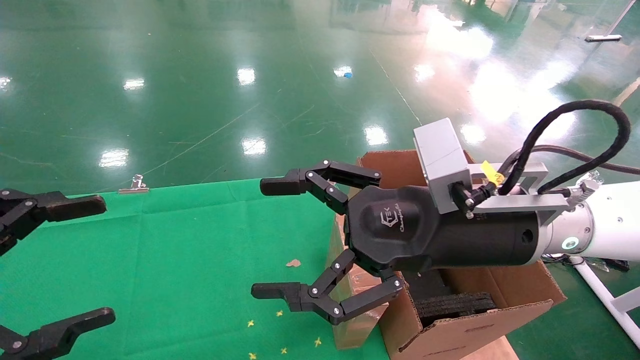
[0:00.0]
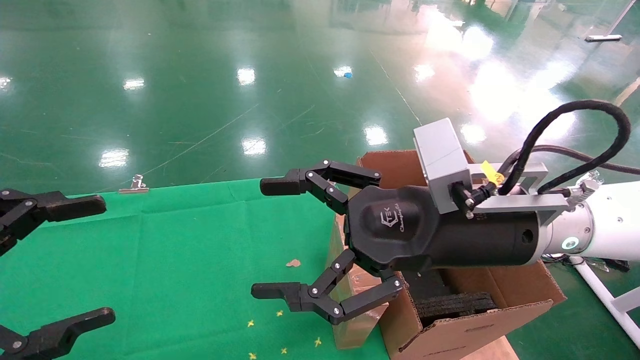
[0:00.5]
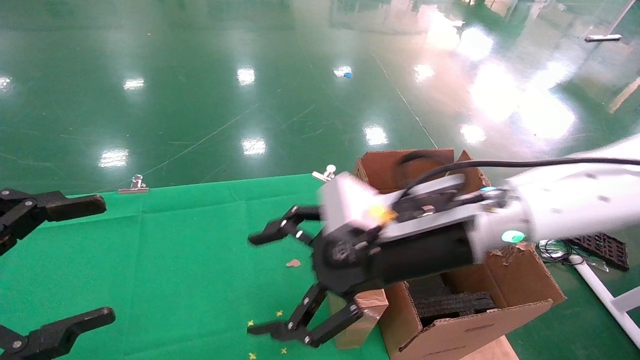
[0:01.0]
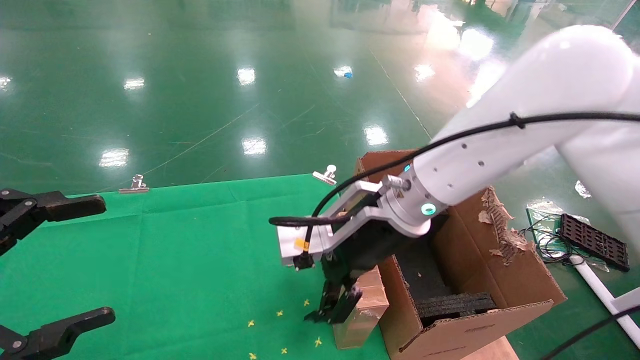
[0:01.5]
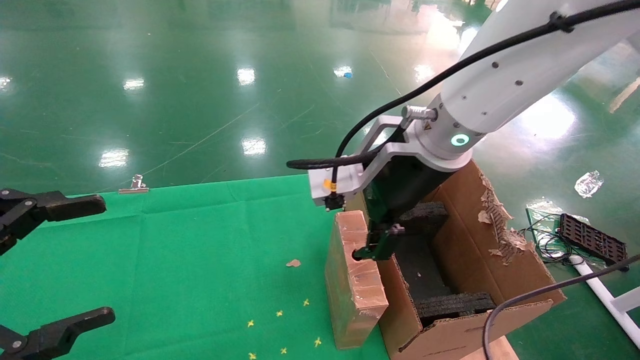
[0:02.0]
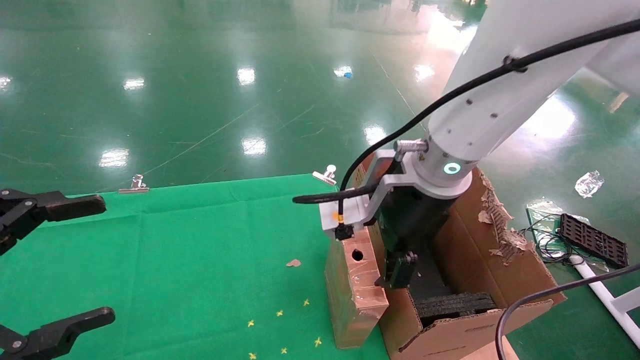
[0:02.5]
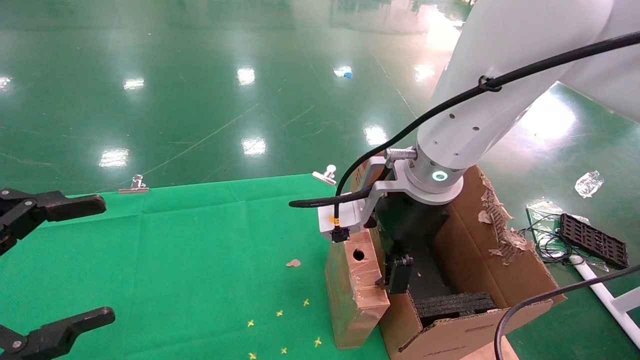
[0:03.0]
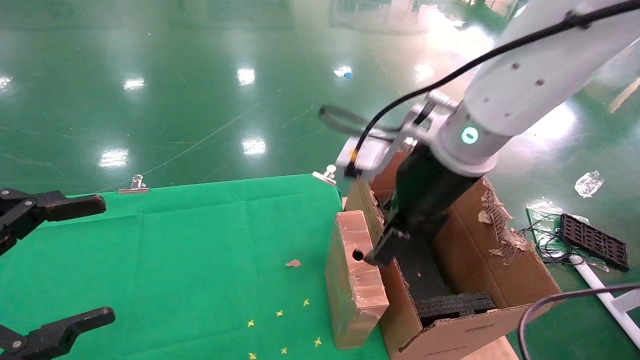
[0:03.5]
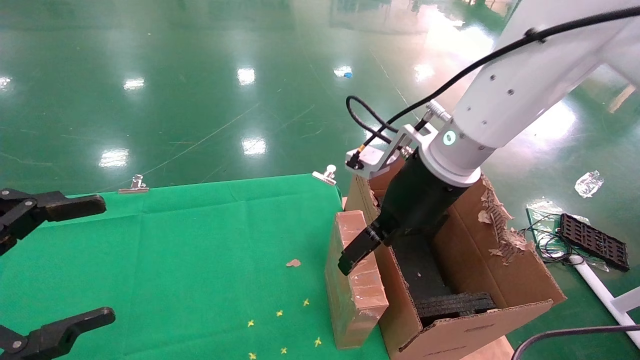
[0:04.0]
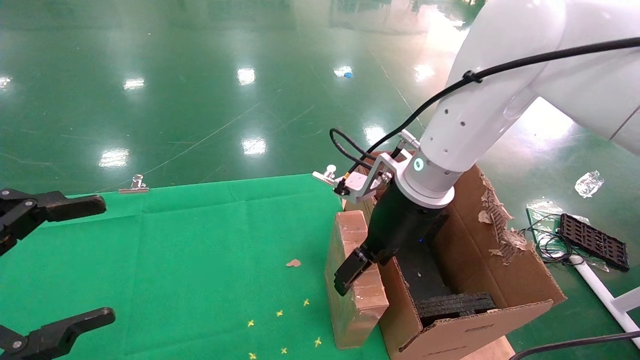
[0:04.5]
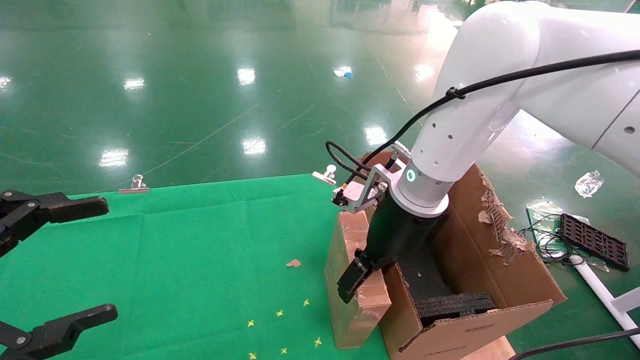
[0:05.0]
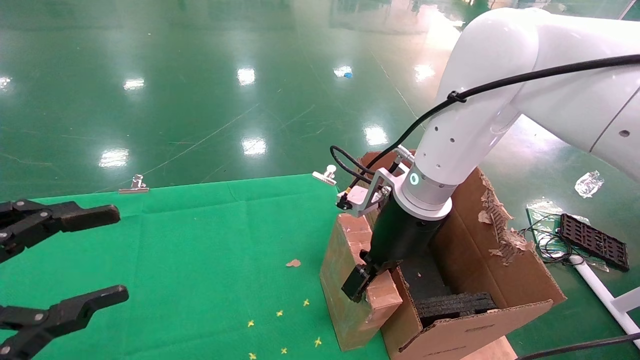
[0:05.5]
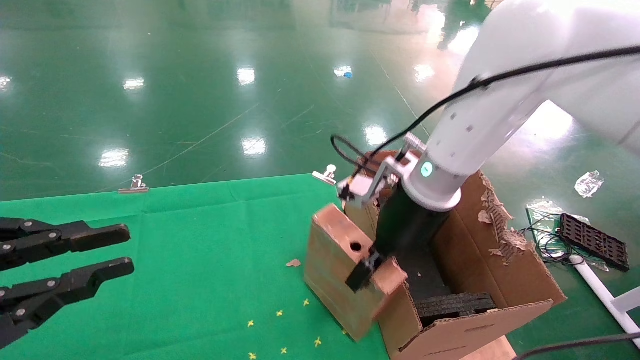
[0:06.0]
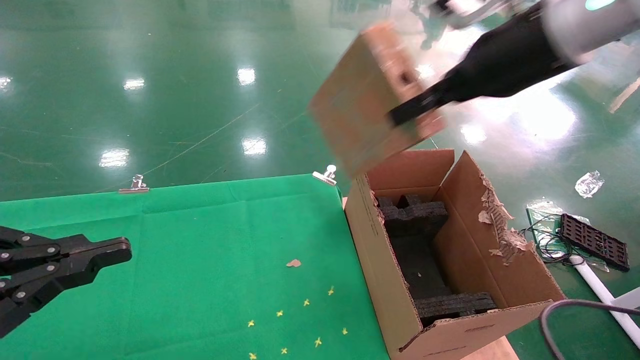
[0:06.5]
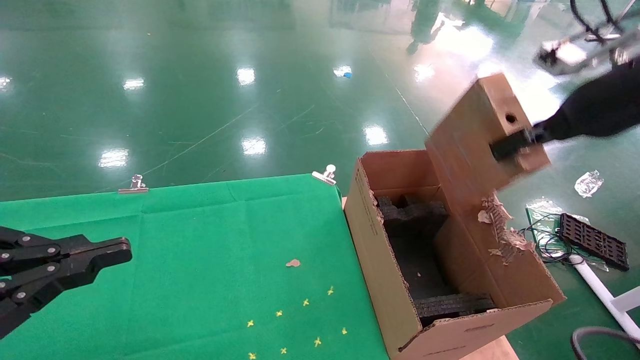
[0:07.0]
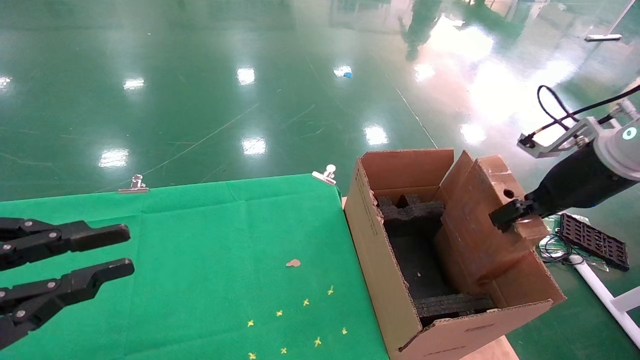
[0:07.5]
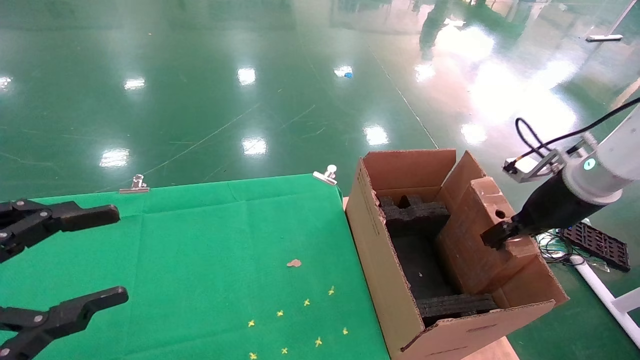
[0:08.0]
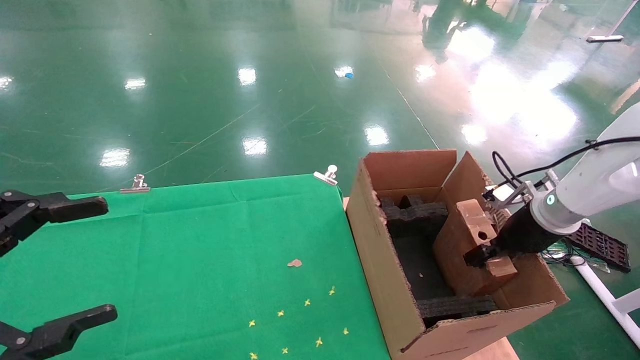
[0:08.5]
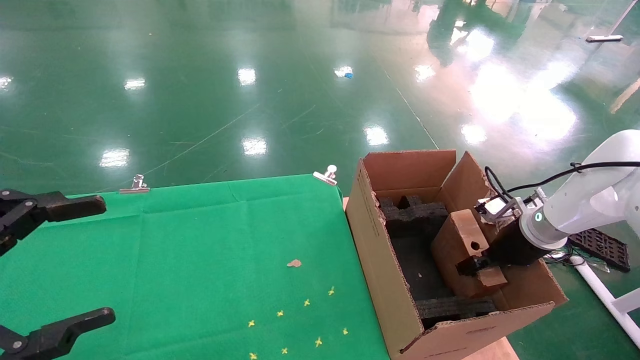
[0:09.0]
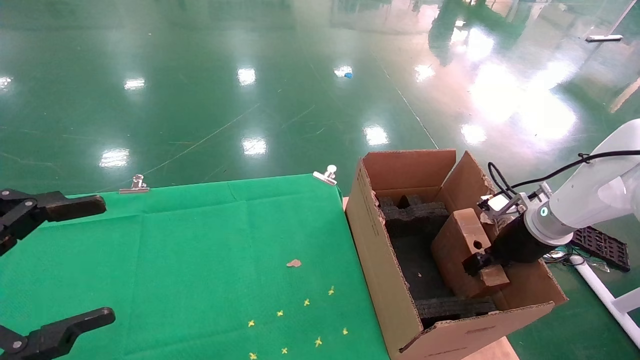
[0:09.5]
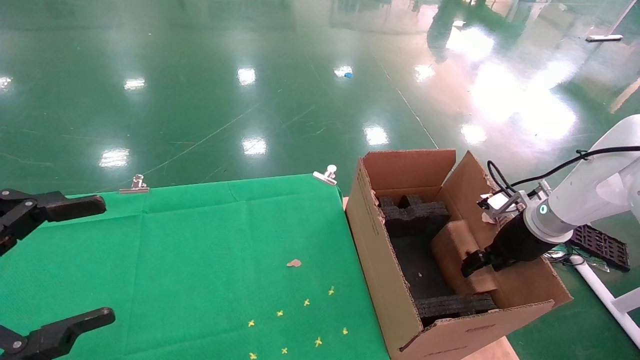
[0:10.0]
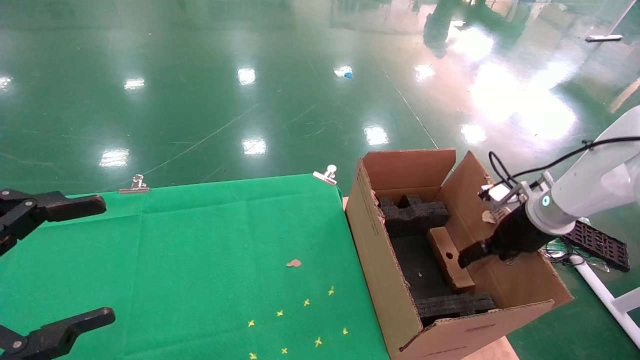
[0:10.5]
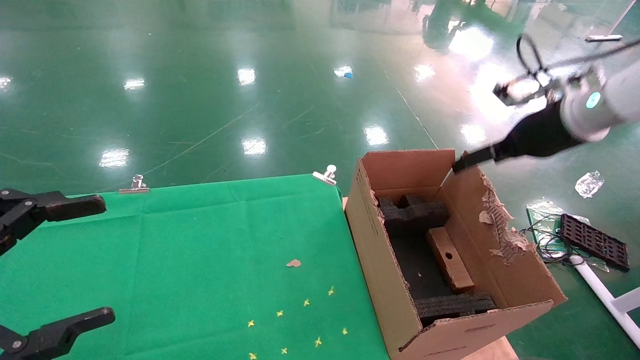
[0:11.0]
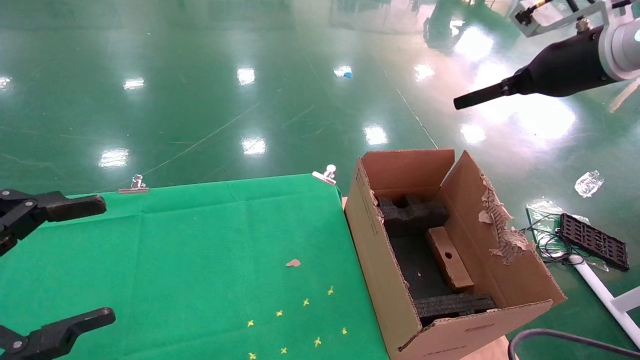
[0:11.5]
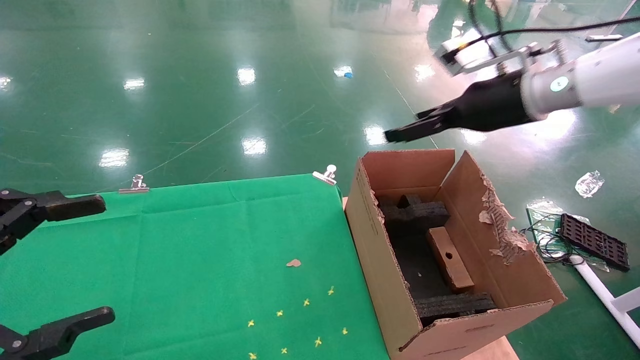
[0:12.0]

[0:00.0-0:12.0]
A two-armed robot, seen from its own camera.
Task of the whole recording: using a robotic arm to pick up a cardboard box and palace it the carton.
Step, 0:01.0 to 0:04.5: Pick up the mouse and the power cord paper box.
Step, 0:05.0 to 0:09.5: Place the mouse and the power cord paper box into the container.
0:00.0 to 0:02.0: The right gripper travels forward, upward and to the left by approximately 10 cm.
0:04.0 to 0:06.0: The left gripper closes up. The right gripper closes.
0:06.0 to 0:08.0: The right gripper heads to the right, covering approximately 25 cm.
0:08.0 to 0:10.0: The right gripper travels downward by about 10 cm, and opens up. The left gripper opens its fingers.
0:10.0 to 0:12.0: The right gripper goes about 20 cm upward and to the left, and opens up.

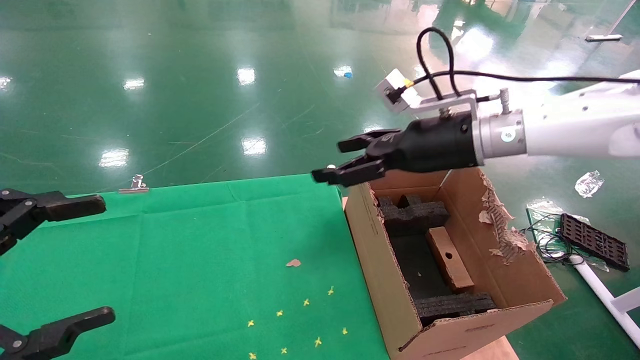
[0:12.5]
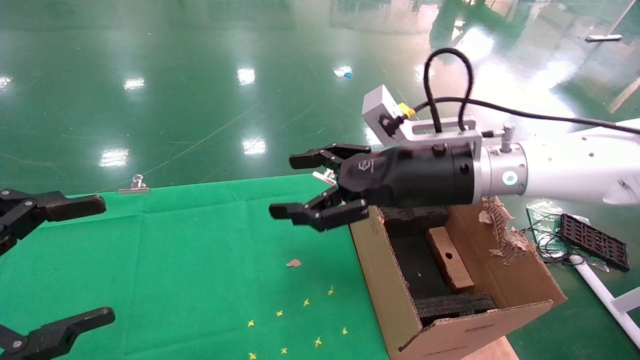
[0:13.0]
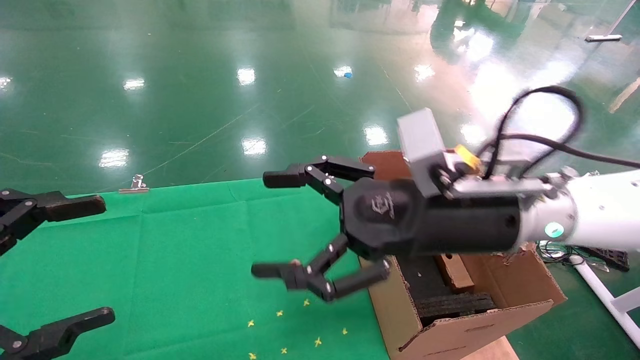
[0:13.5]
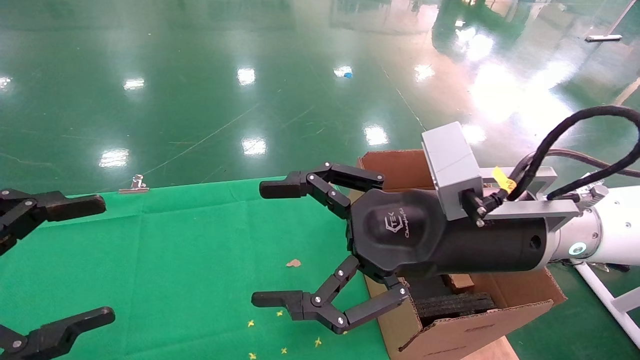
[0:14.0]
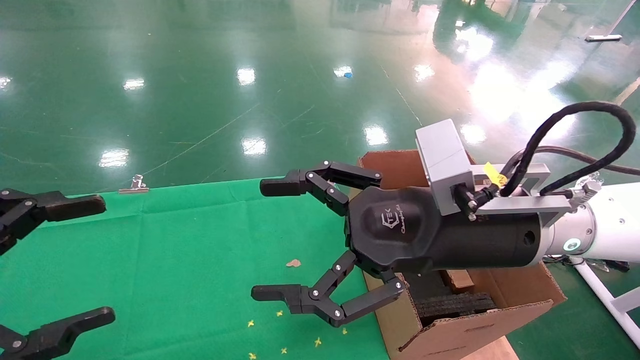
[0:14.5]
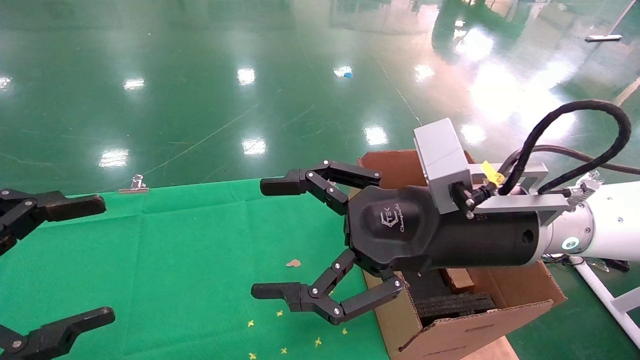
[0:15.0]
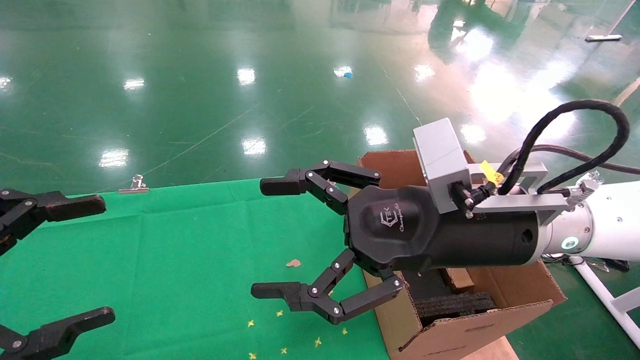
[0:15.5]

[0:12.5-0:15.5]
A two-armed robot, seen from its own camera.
Task of the whole recording: using a robotic arm to pick up a cardboard box and palace it the carton.
0:12.5 to 0:14.0: The right gripper moves backward and to the left, about 15 cm.
0:14.0 to 0:15.5: Both grippers stay put.
